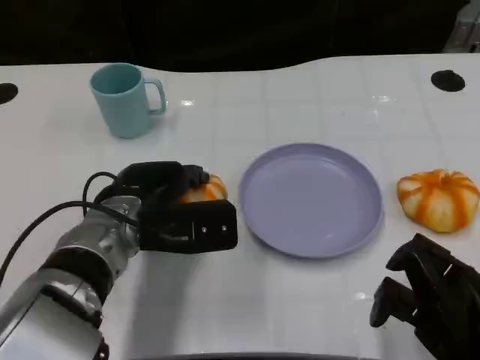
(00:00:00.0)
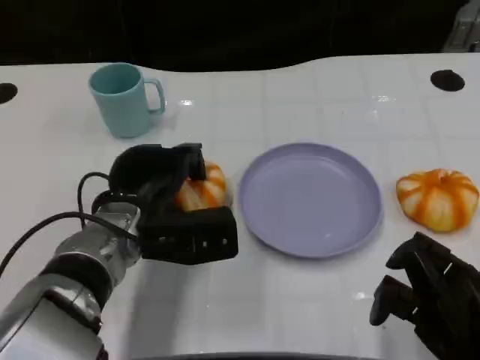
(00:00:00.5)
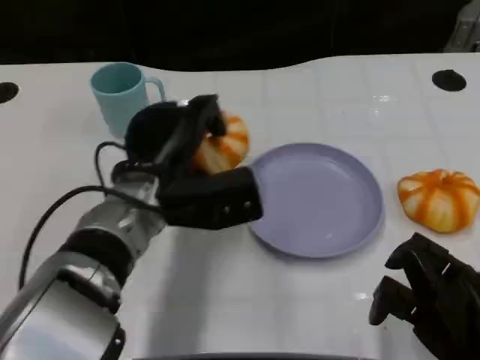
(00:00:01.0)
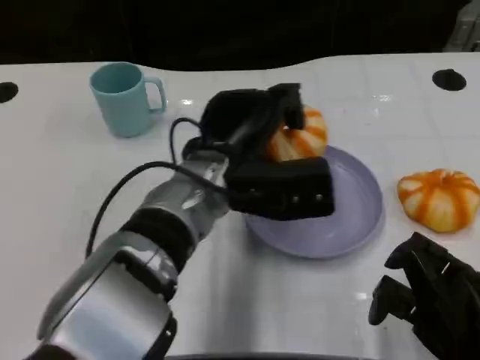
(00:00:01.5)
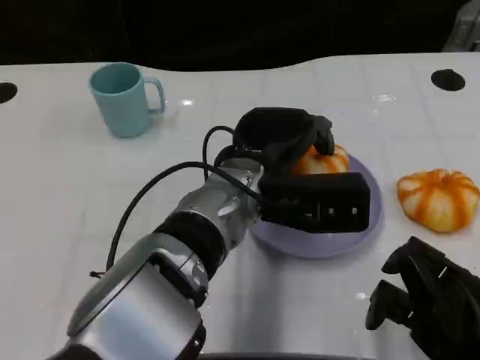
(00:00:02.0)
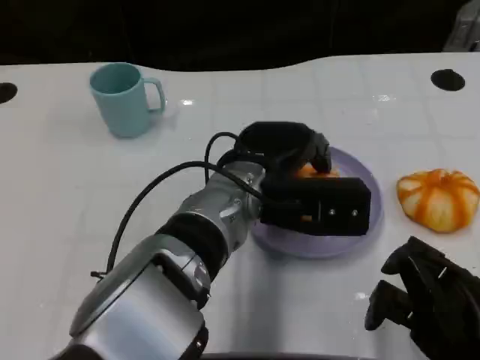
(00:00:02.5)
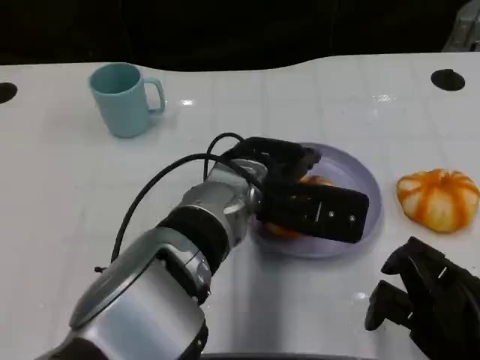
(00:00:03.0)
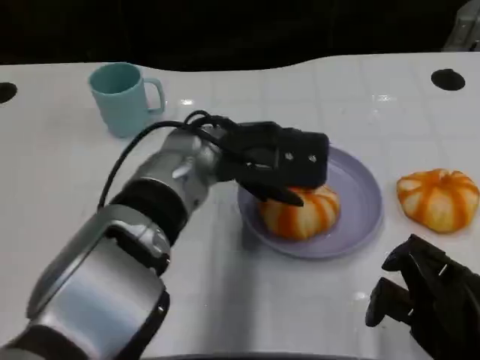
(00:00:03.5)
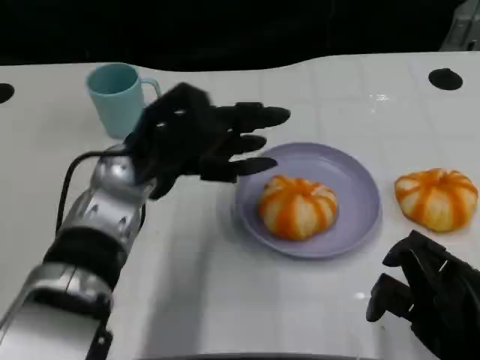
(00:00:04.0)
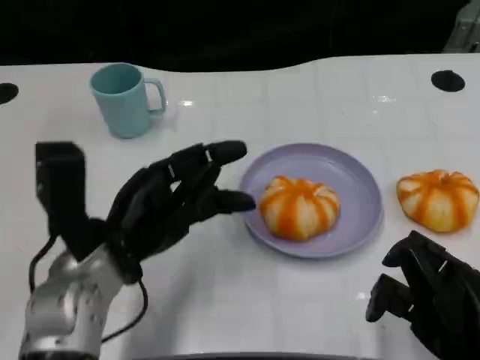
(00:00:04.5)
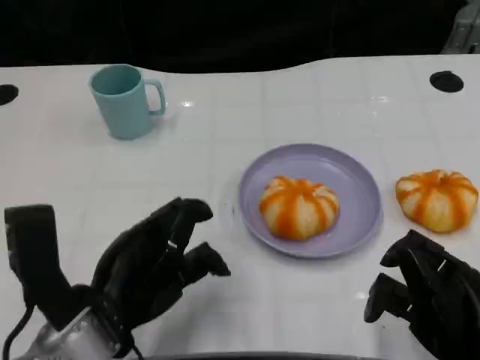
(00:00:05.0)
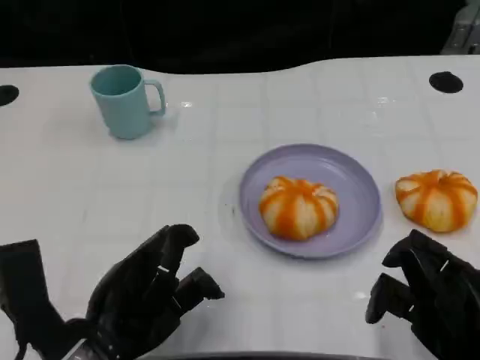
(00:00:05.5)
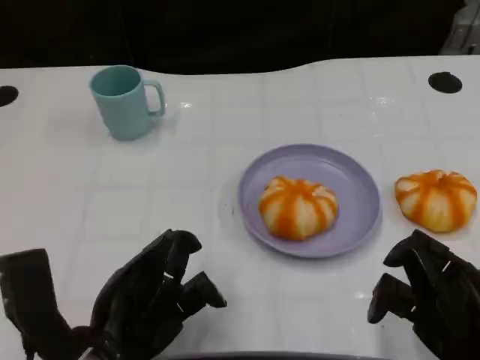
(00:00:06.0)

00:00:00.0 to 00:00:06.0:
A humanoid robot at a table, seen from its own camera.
Task of the whole recording: Grasp the bread from the table and place it into the plate.
00:00:00.0 to 00:00:02.0: The left hand is displaced to the right by roughly 10 cm.
00:00:02.0 to 00:00:04.0: The left hand goes some 10 cm to the left.
00:00:04.0 to 00:00:06.0: The left hand is displaced backward by roughly 15 cm.
